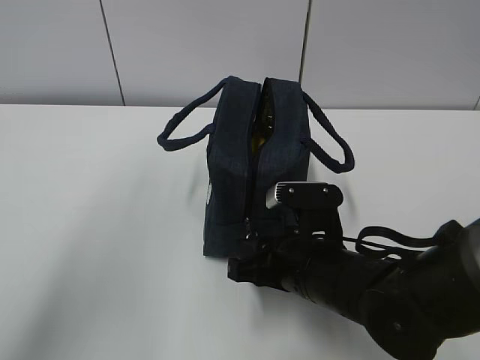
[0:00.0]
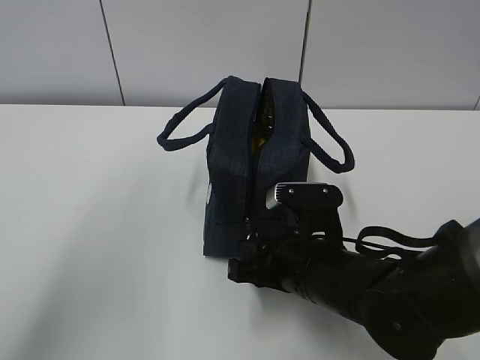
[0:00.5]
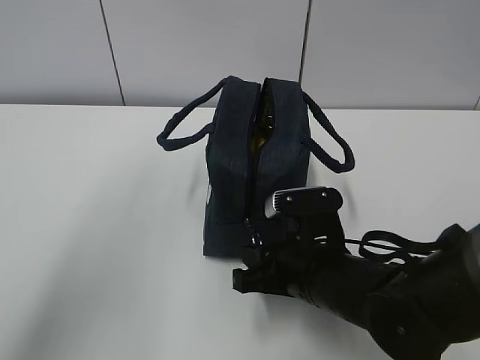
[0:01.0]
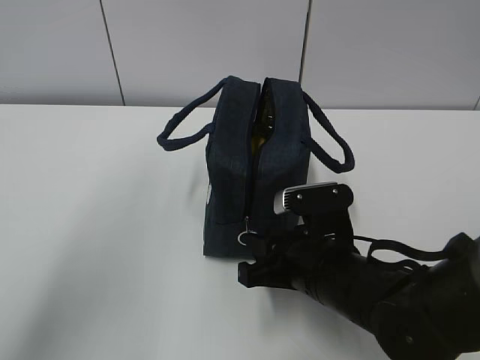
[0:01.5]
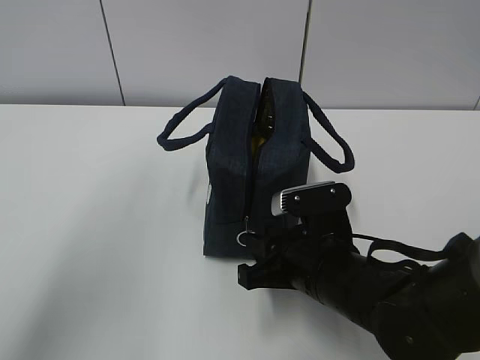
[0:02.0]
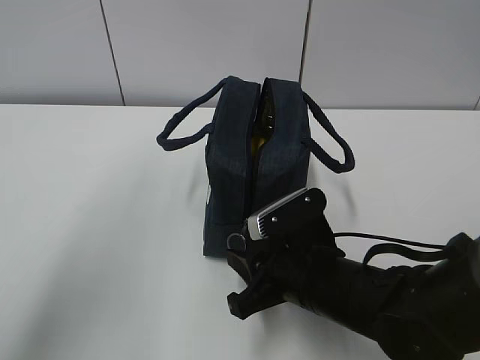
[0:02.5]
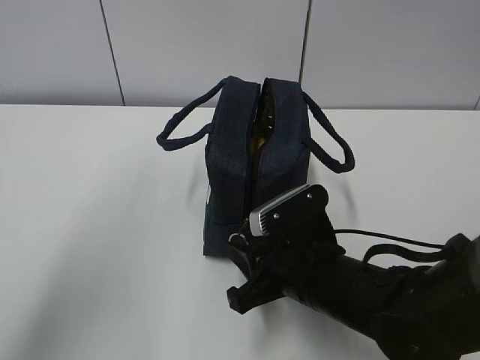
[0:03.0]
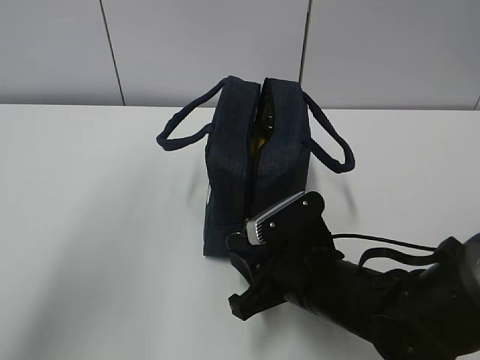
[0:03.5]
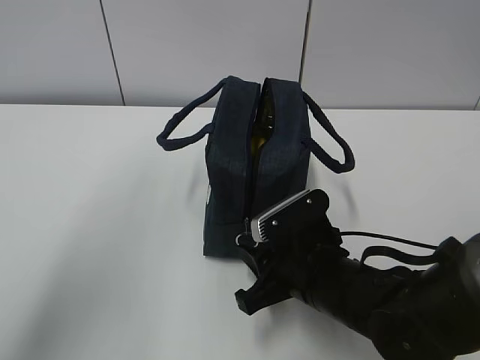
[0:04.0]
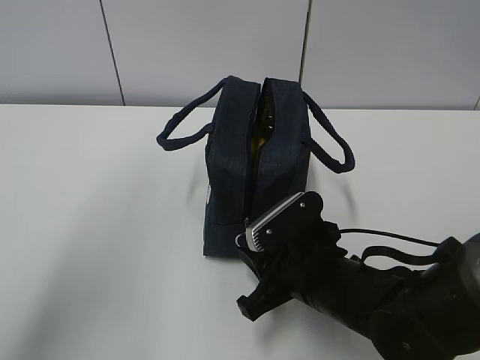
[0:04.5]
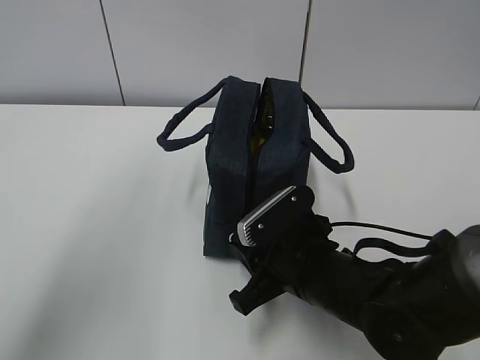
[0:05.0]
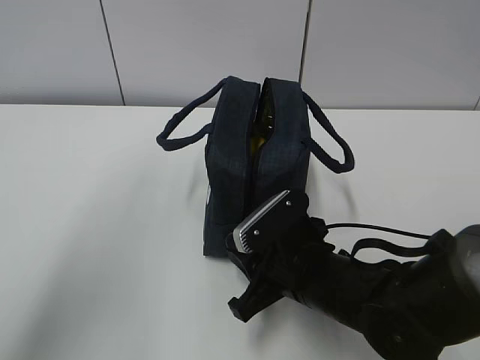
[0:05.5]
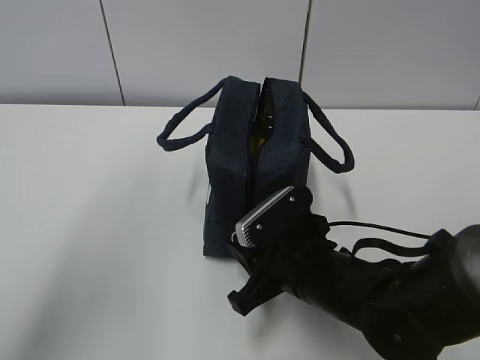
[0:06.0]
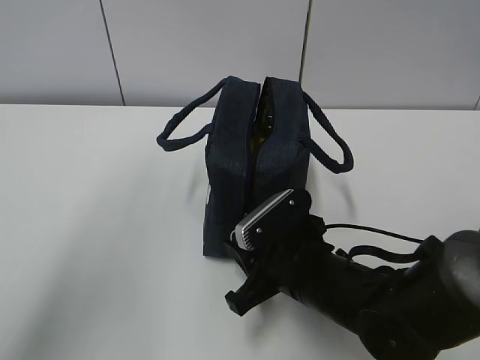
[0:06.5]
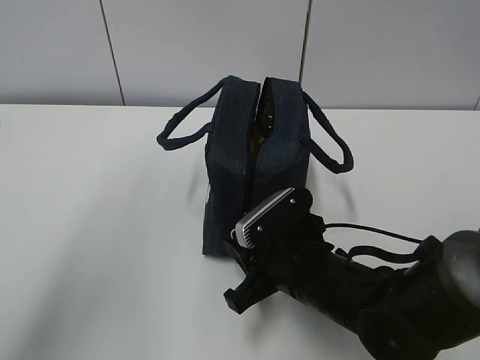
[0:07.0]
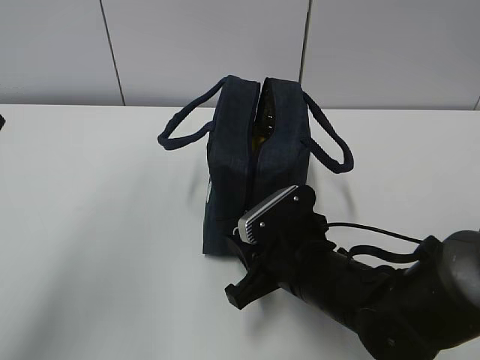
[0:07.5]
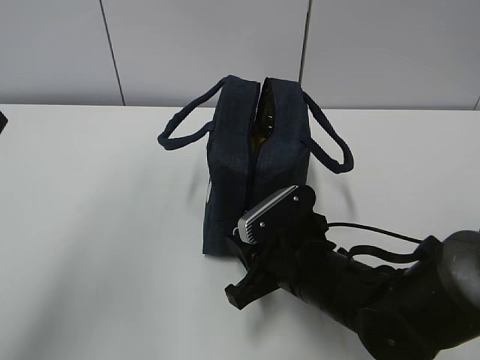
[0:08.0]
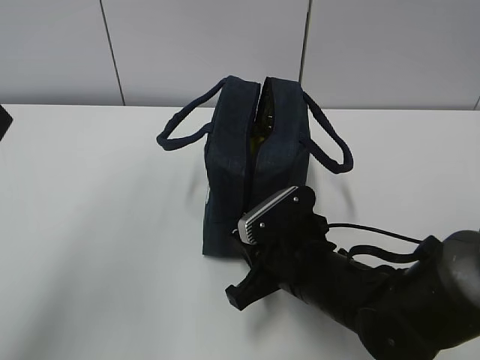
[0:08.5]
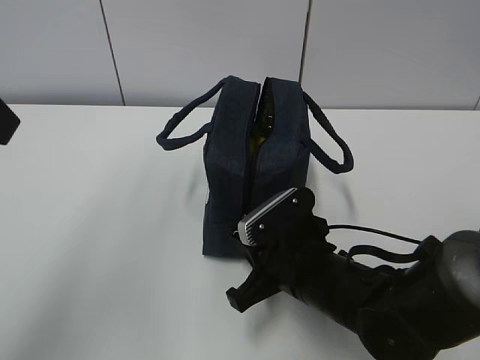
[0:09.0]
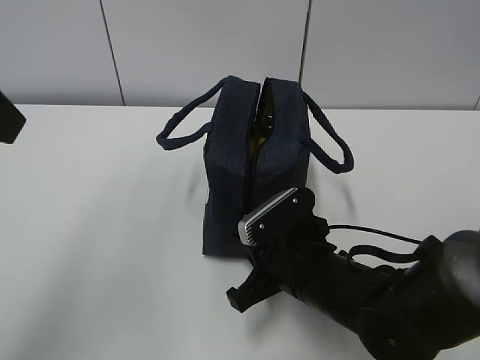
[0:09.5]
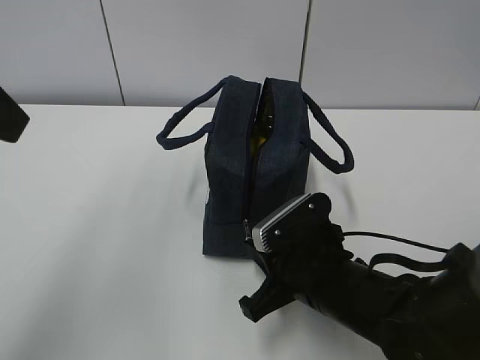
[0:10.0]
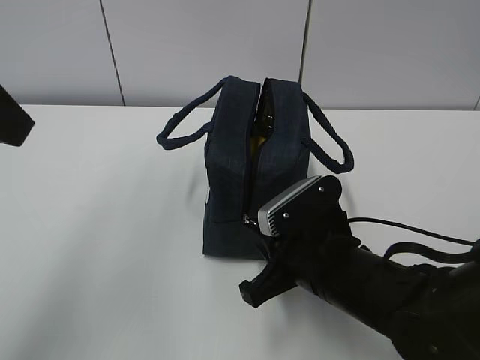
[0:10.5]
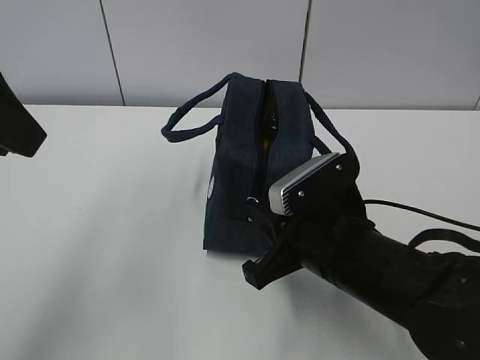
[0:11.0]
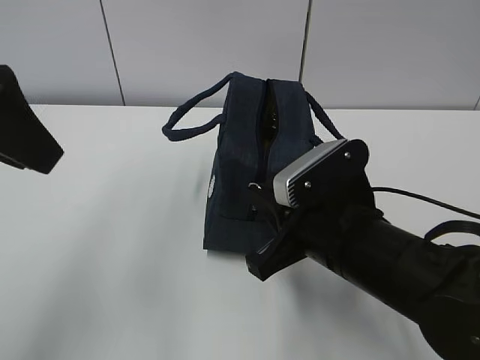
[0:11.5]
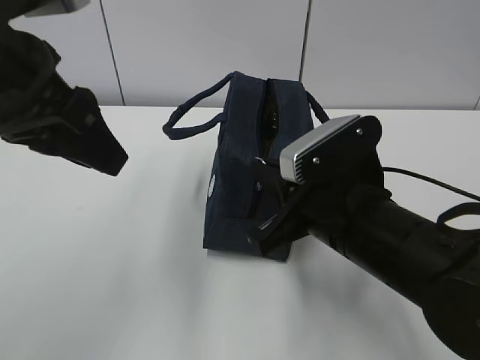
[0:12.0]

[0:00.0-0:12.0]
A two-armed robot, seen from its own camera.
0:00.0 to 0:02.0: The grippers make only small movements.
0:02.0 to 0:04.0: The grippers stay close to where they were, moving slightly.
0:04.0 to 0:06.0: The grippers make only small movements.
0:06.0 to 0:08.0: Both grippers stay put.
0:08.0 to 0:10.0: The right gripper closes its fingers.
0:10.0 to 0:12.0: The left gripper is displaced downward by some 5 cm, while the right gripper goes some 10 cm upward.

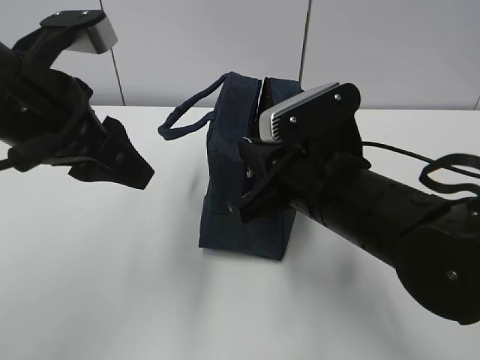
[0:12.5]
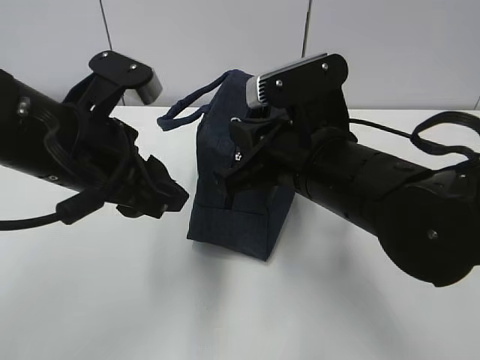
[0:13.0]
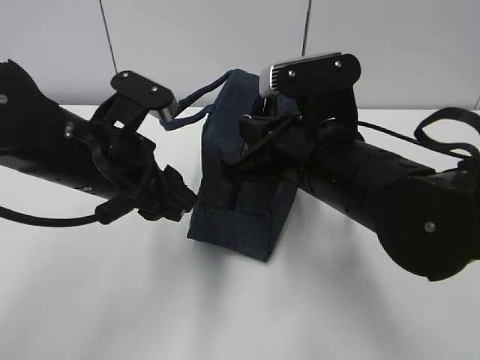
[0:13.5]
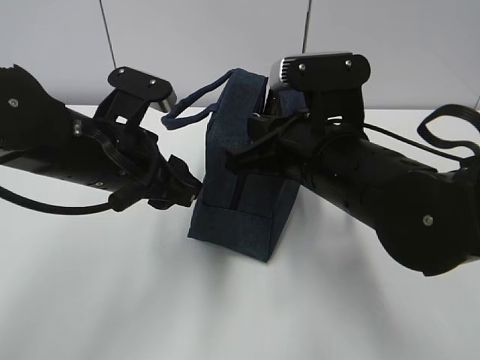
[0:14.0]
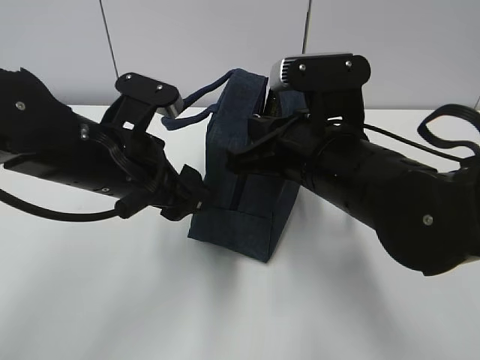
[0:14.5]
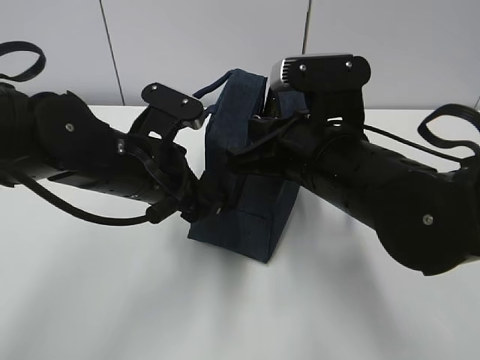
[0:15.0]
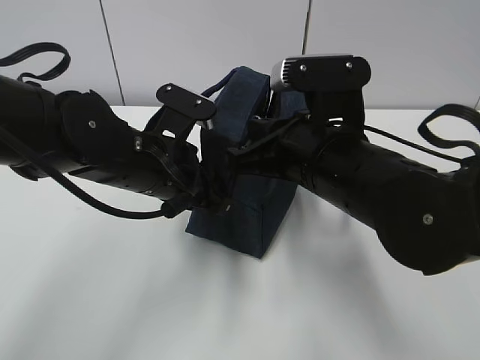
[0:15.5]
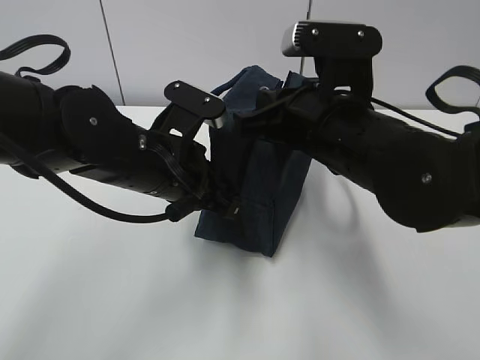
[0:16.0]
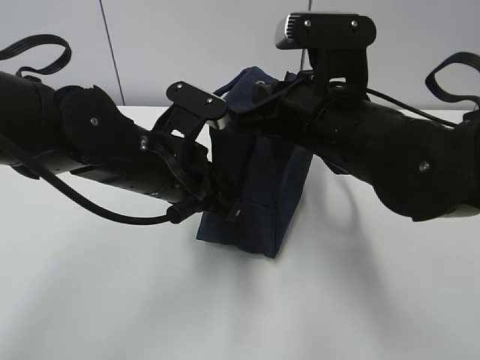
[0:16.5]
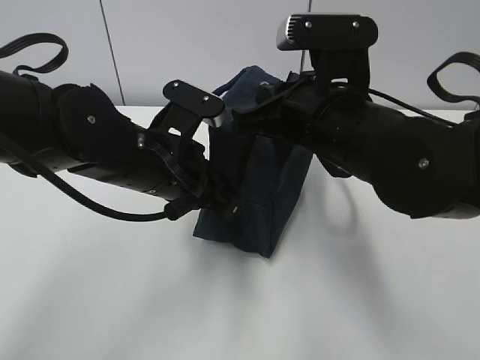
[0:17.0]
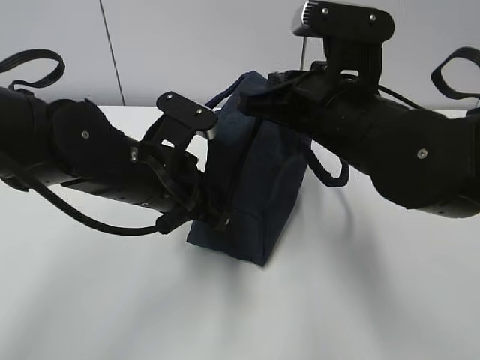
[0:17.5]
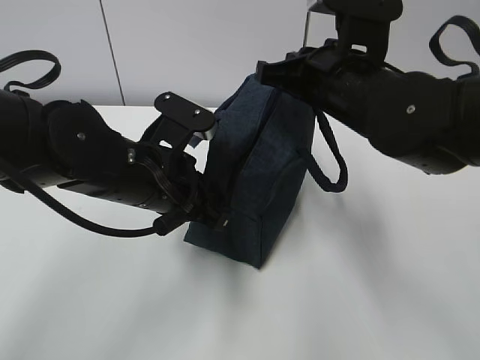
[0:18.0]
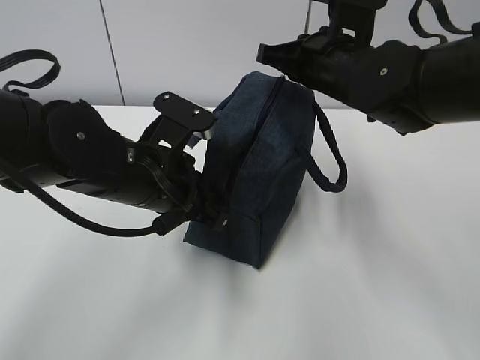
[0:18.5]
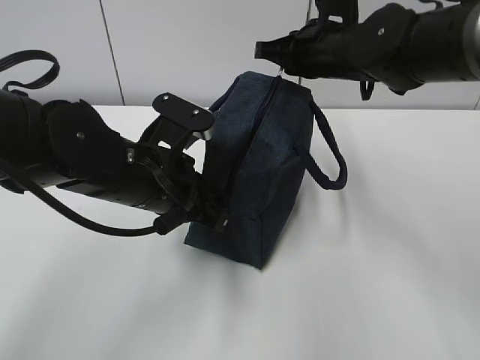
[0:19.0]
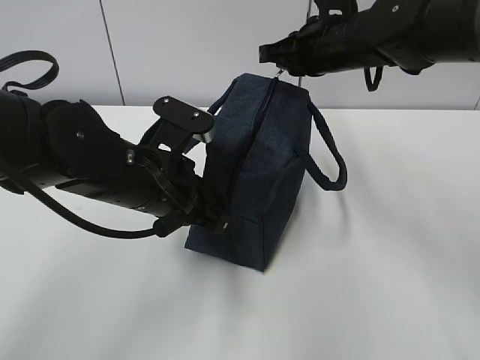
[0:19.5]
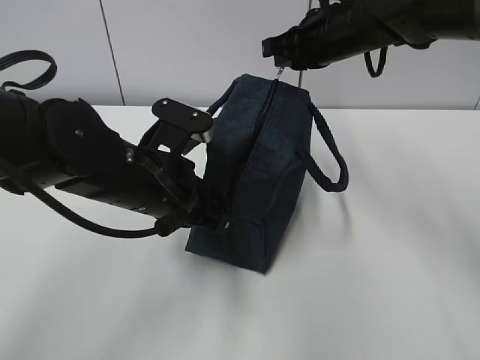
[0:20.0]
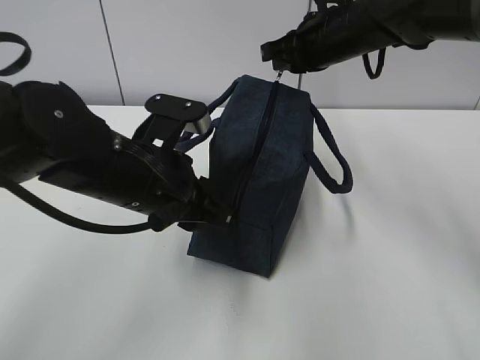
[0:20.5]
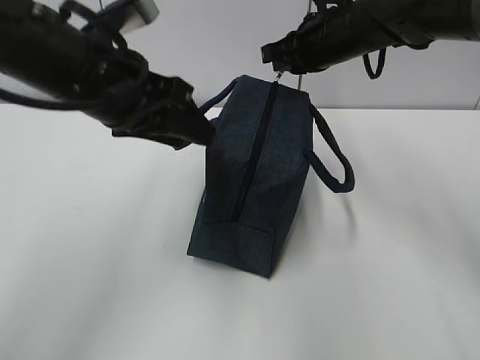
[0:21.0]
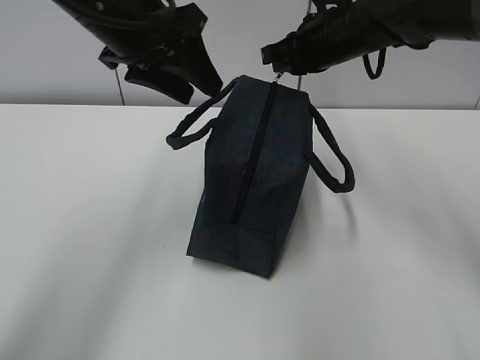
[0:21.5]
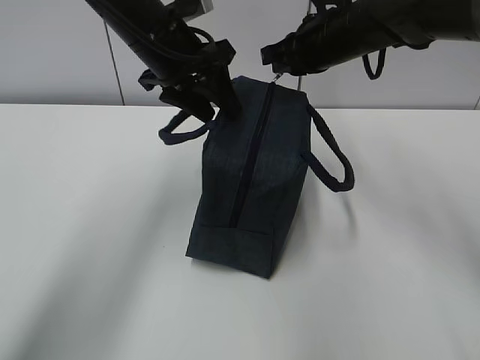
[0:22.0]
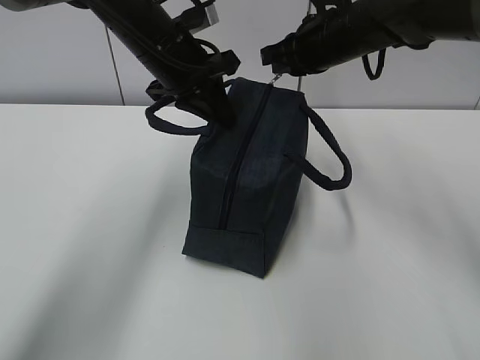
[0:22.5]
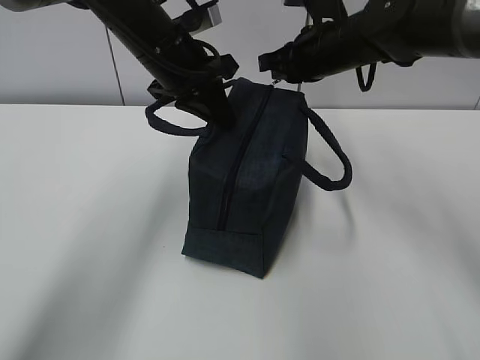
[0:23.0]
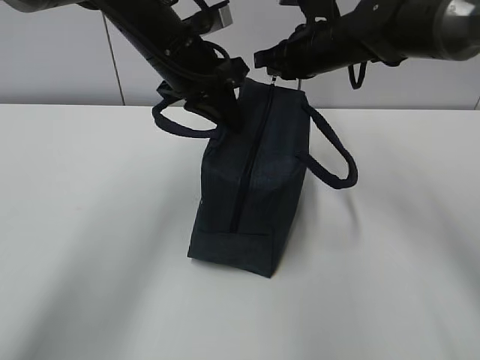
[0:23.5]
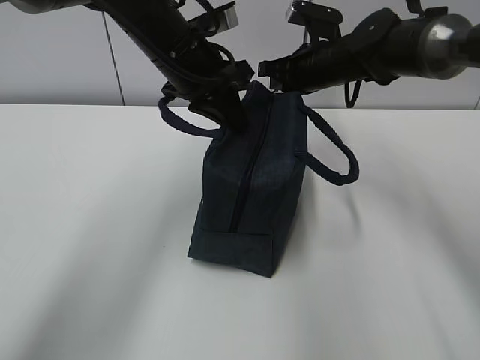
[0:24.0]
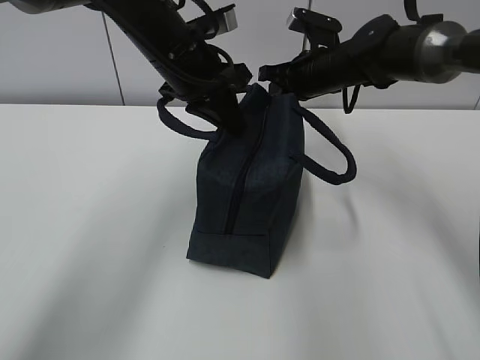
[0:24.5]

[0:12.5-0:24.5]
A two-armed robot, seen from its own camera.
Step, 0:12.5 to 0:14.5: Pull the zipper with your right hand.
0:12.5 to 0:14.5: The left gripper travels downward by roughly 10 cm, and opens its fingers.
0:14.5 to 0:16.5: The left gripper closes up.
0:16.5 to 0:18.5: The right gripper moves forward, roughly 10 cm.
0:18.5 to 0:20.5: The right gripper is displaced forward by about 5 cm. The left gripper opens its fingers.
0:20.5 to 0:22.5: The left gripper goes about 15 cm forward and upward, and closes.
0:22.5 to 0:24.5: The right gripper is displaced downward and forward by some 10 cm.

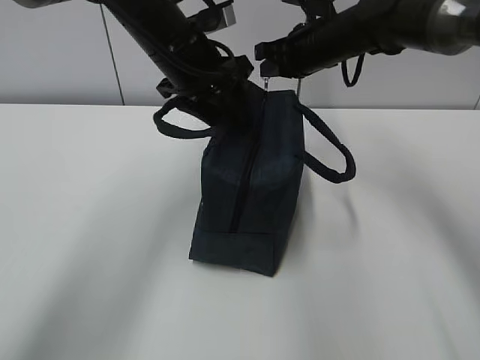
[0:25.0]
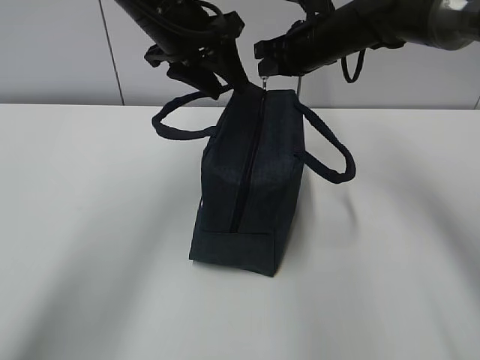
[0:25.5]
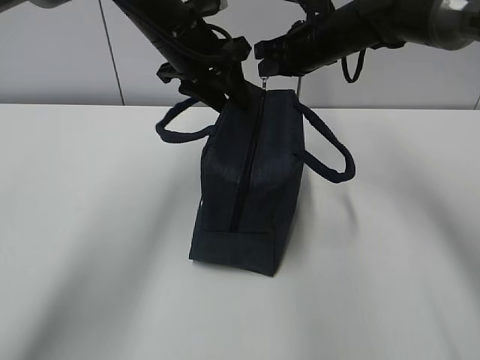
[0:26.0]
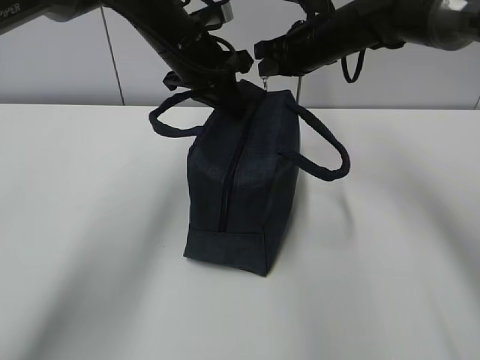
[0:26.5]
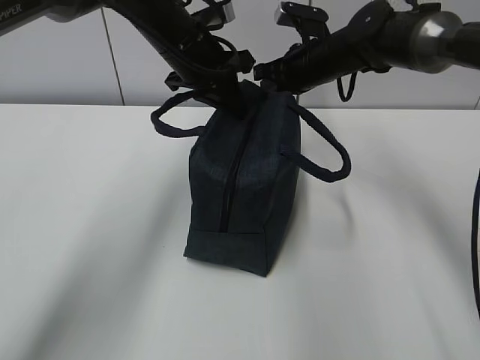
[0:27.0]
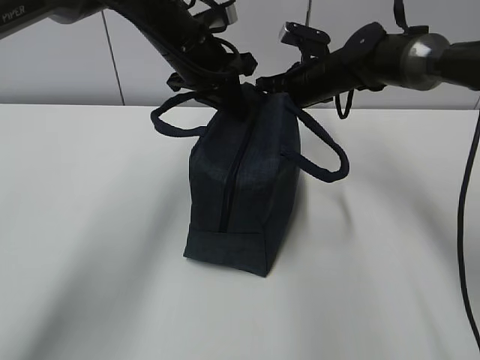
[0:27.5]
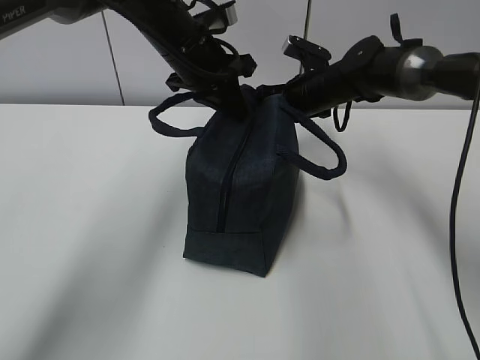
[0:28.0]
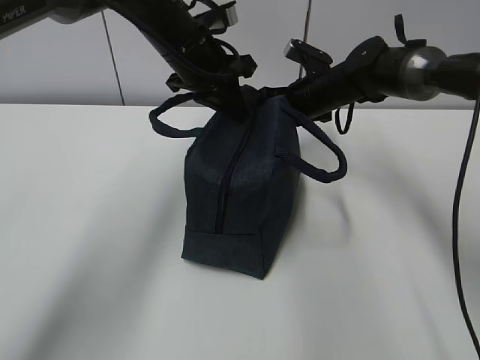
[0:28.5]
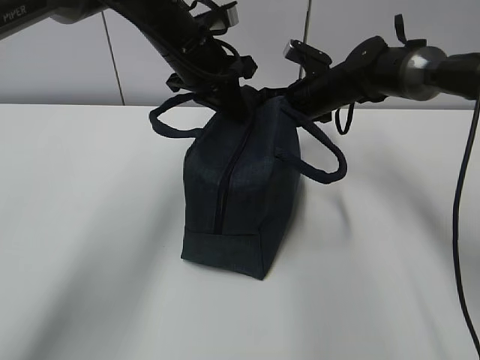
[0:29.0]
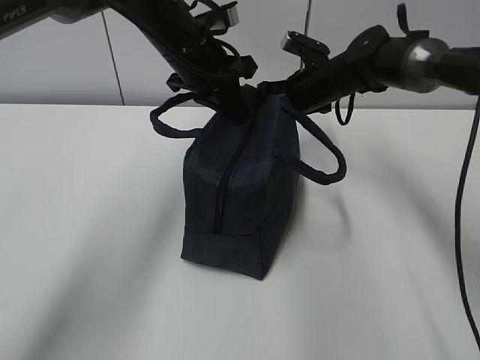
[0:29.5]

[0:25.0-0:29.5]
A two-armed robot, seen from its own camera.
0:25.0 to 0:27.0: The left gripper closes its fingers.
0:27.0 to 0:29.5: The grippers make only small movements.
